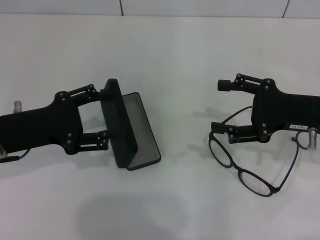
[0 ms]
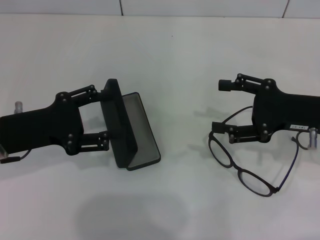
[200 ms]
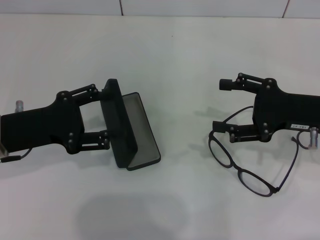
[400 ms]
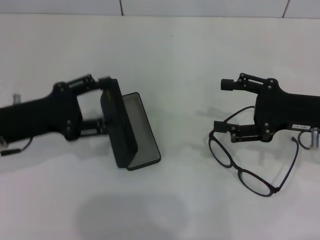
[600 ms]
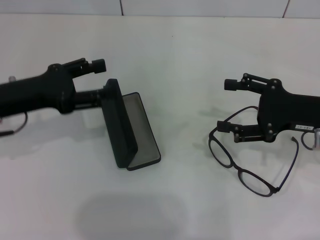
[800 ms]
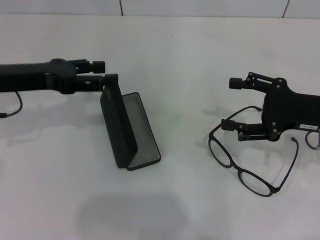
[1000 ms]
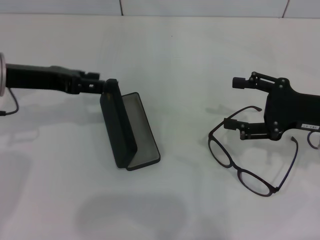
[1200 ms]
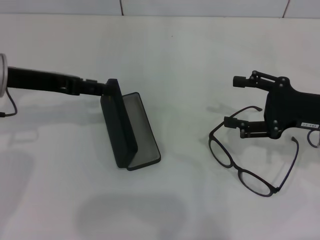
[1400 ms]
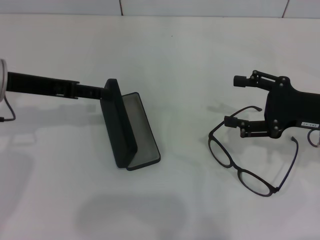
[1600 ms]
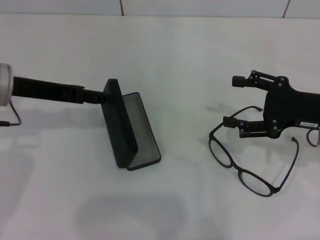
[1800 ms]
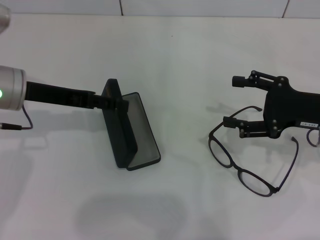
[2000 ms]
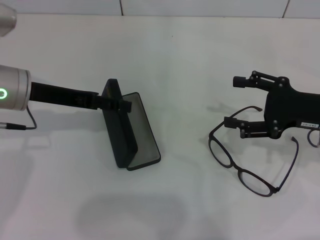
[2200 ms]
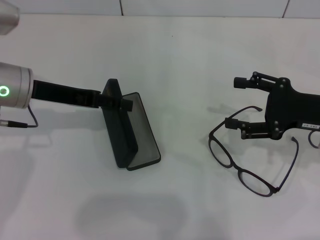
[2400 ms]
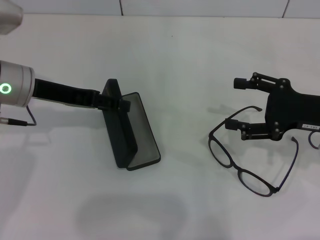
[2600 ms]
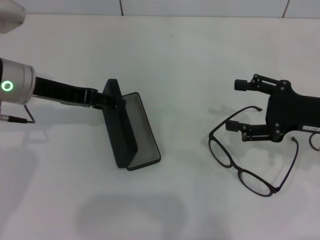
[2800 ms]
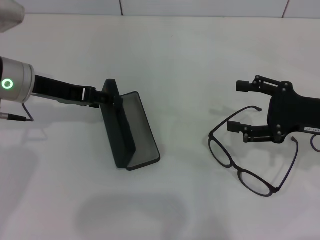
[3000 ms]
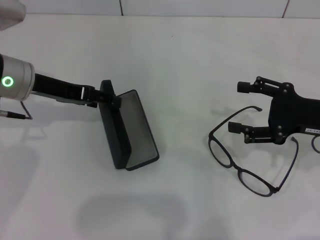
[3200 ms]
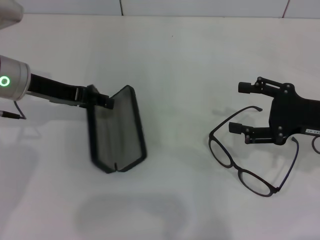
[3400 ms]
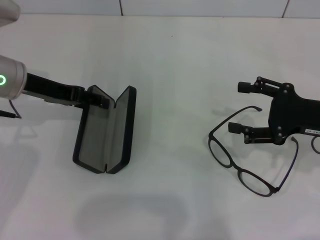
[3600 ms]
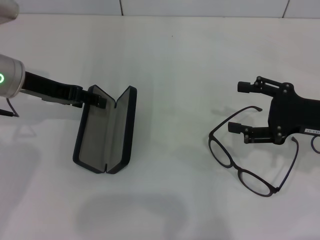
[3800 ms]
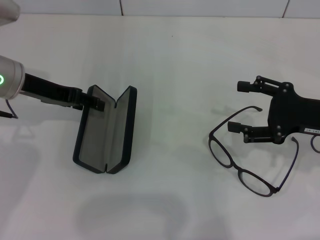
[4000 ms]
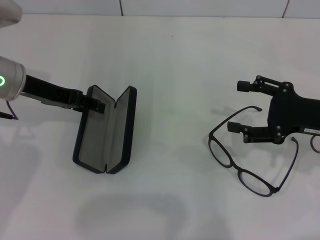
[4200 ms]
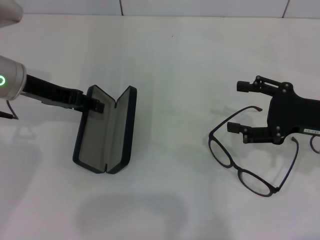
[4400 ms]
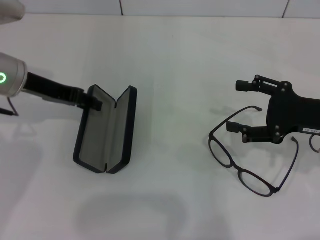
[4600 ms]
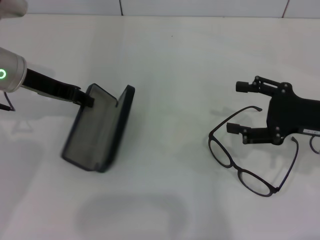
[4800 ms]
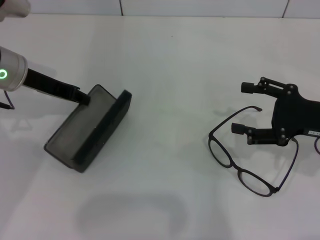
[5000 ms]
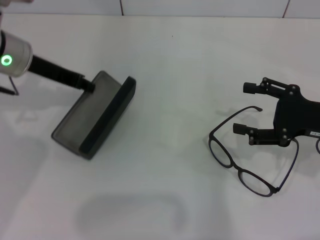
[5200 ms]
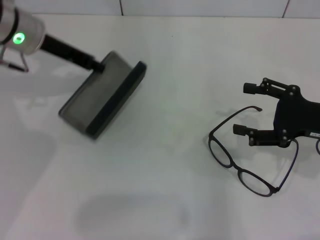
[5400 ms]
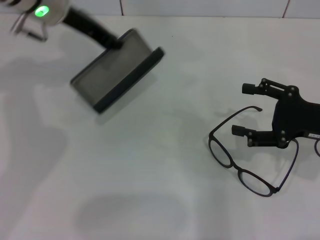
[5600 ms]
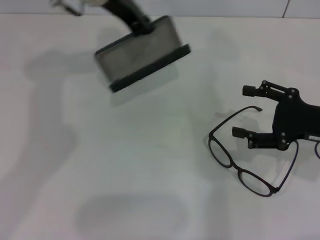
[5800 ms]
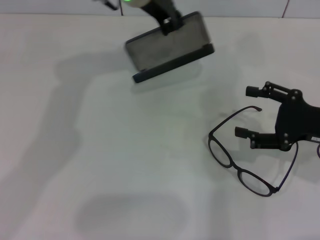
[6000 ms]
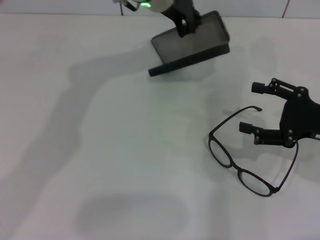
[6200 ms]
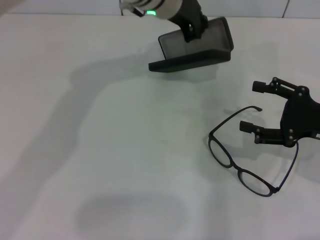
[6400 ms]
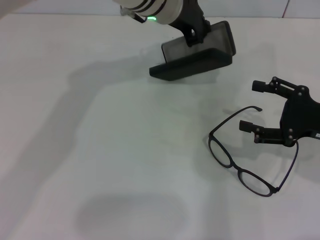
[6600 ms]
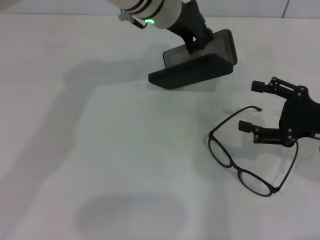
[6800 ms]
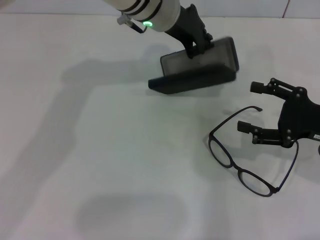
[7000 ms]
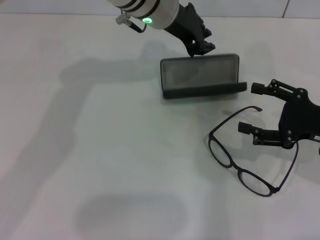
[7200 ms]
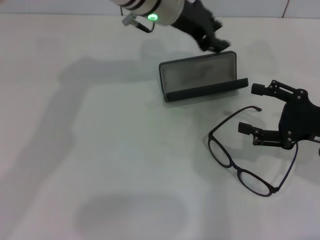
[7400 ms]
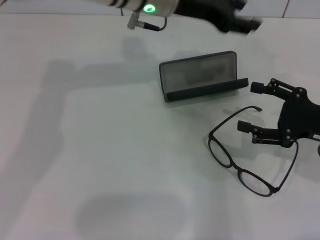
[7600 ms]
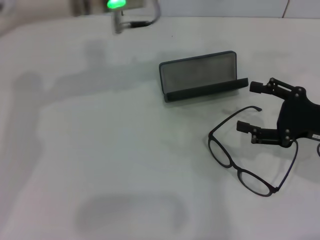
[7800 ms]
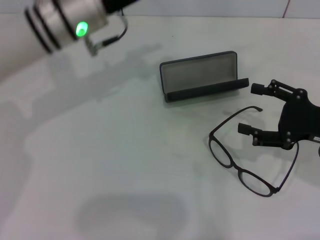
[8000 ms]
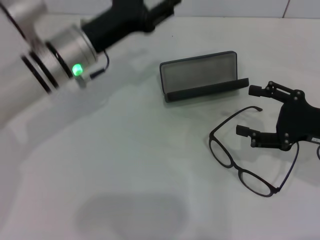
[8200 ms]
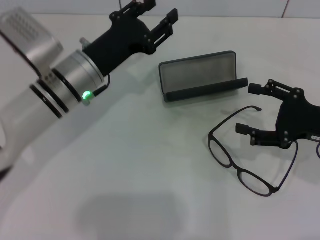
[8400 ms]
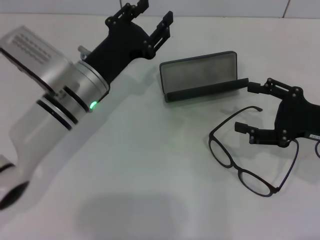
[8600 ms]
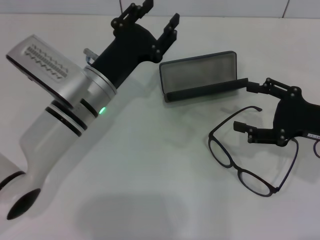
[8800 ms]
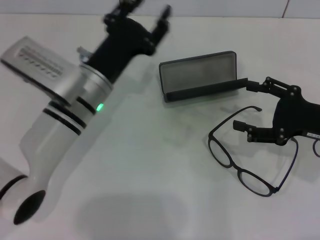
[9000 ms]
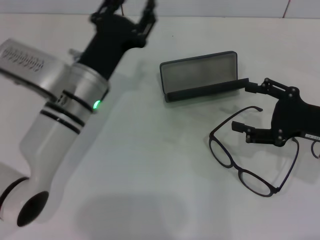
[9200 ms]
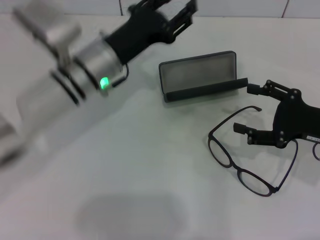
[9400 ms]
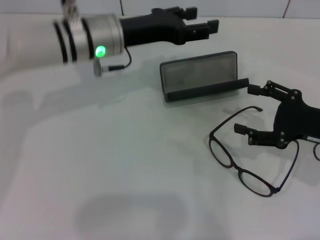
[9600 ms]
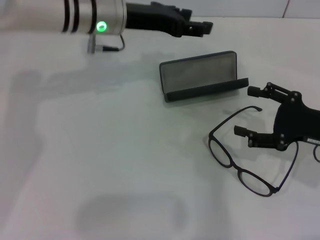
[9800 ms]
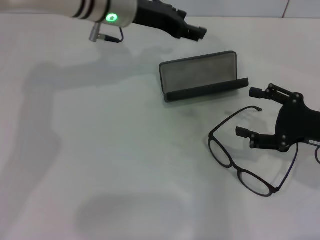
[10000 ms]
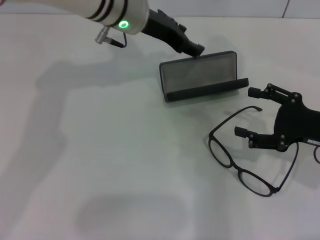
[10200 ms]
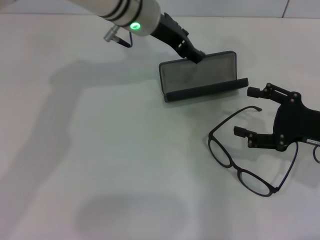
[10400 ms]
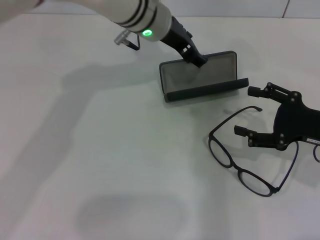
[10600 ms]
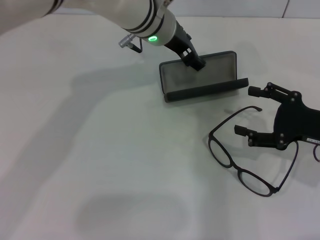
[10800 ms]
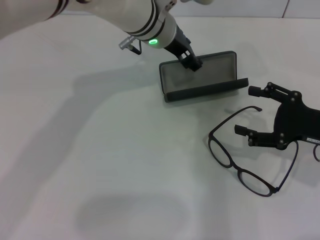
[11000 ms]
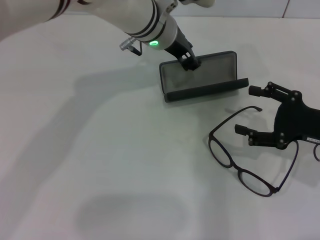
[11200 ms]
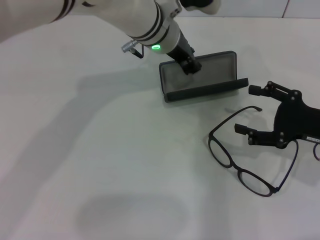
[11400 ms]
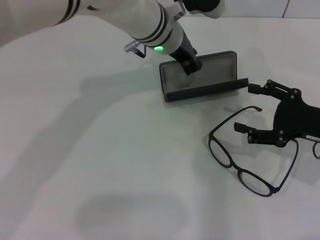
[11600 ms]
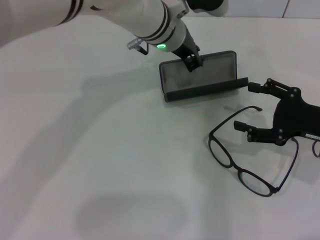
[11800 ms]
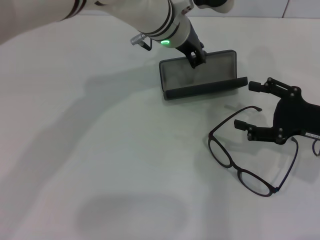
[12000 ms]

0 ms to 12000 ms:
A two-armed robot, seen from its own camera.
Step, 0 ms to 4800 ms: Grab the glasses case with your left hand.
Step, 5000 ms to 7400 ms: Place the glasses case in the center of the table with your left hand.
0 ms to 1600 ms: The left gripper moves forward and upward, some 10 cm.
1600 ms to 4400 ms: The grippers make only small movements.
4400 ms to 6000 ms: The left gripper moves to the right and forward, about 20 cm, and closes its fingers.
6000 ms to 7600 ms: The left gripper opens.
7600 ms to 9000 ms: The left gripper travels downward, backward and to the left by approximately 20 cm.
9000 ms to 10400 ms: The left gripper goes about 15 cm forward, upward and to the right.
10400 ms to 12000 ms: The left gripper moves to the right, some 5 cm, and closes up.

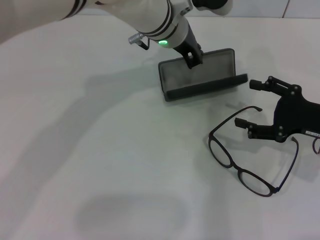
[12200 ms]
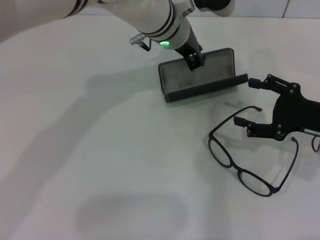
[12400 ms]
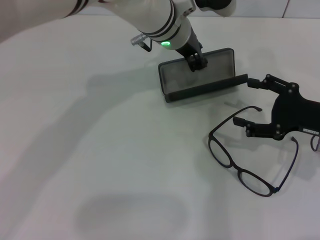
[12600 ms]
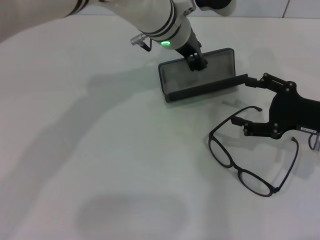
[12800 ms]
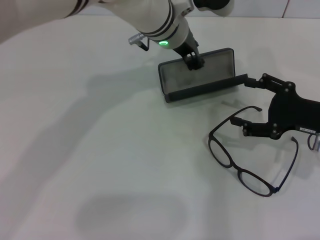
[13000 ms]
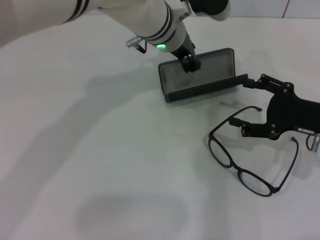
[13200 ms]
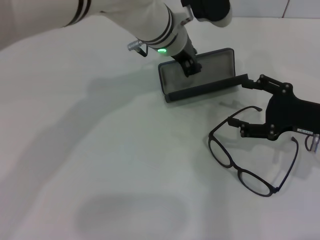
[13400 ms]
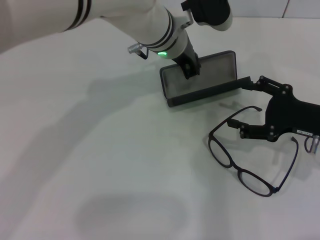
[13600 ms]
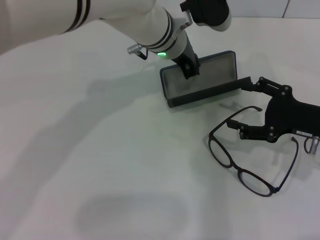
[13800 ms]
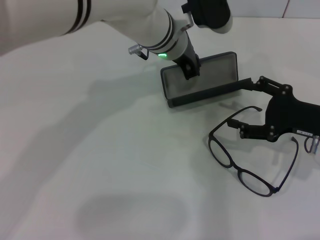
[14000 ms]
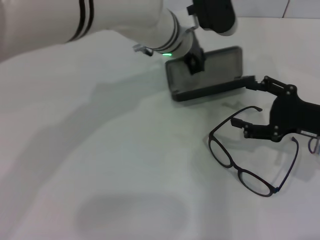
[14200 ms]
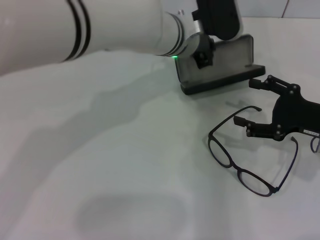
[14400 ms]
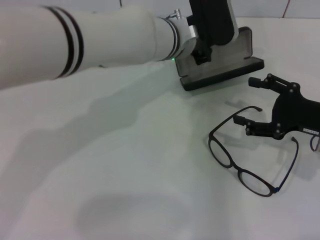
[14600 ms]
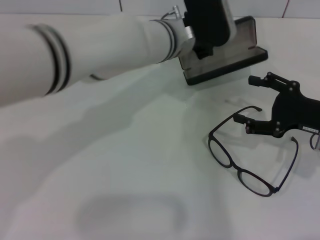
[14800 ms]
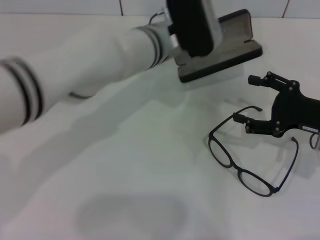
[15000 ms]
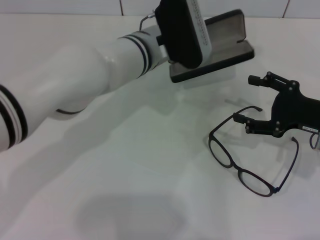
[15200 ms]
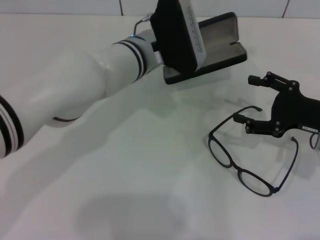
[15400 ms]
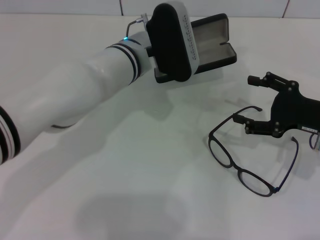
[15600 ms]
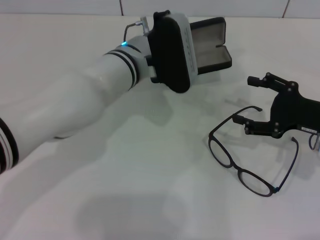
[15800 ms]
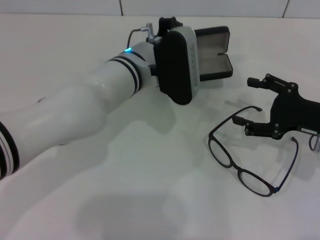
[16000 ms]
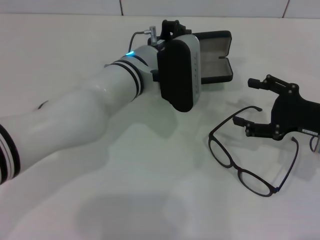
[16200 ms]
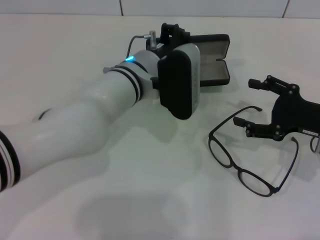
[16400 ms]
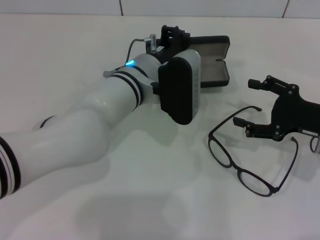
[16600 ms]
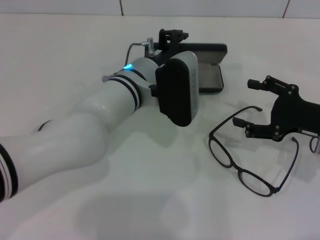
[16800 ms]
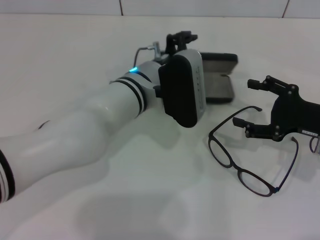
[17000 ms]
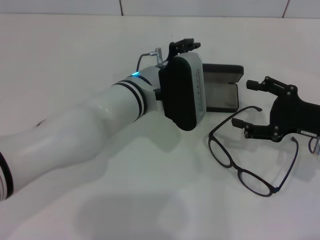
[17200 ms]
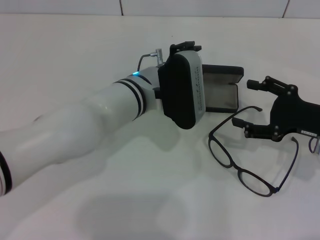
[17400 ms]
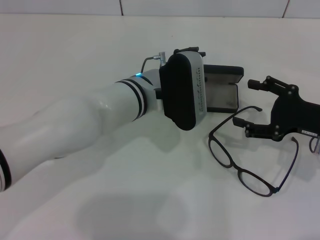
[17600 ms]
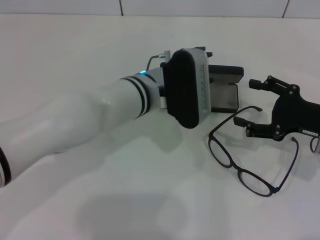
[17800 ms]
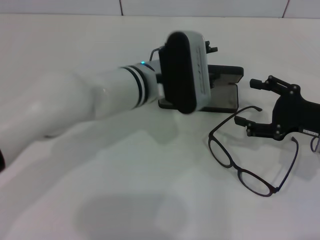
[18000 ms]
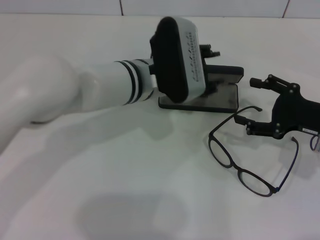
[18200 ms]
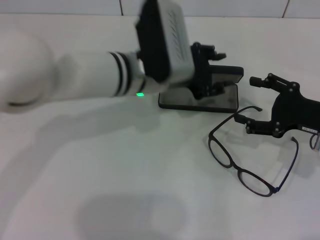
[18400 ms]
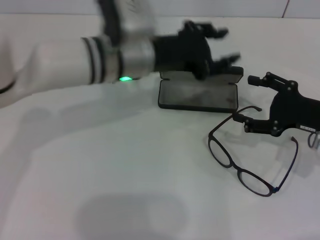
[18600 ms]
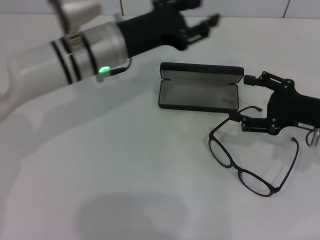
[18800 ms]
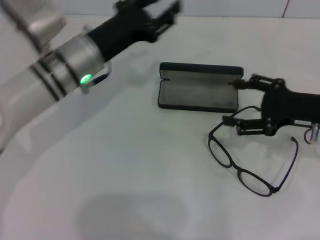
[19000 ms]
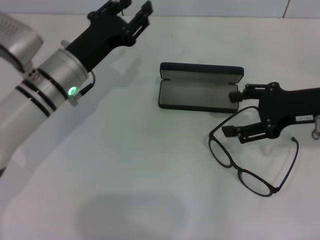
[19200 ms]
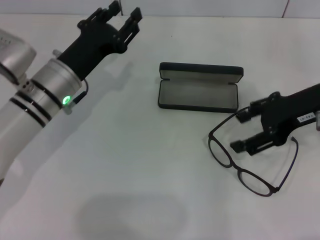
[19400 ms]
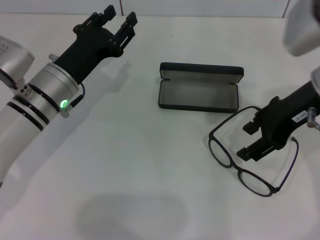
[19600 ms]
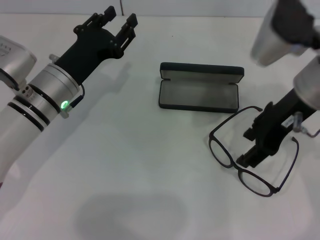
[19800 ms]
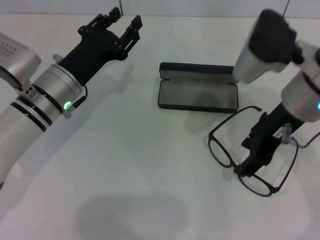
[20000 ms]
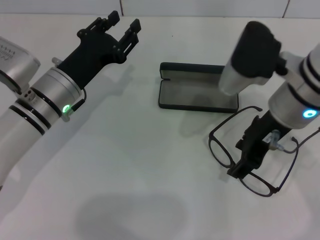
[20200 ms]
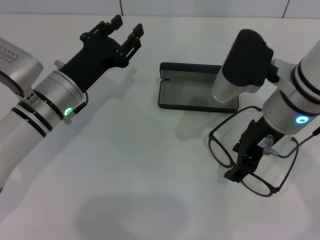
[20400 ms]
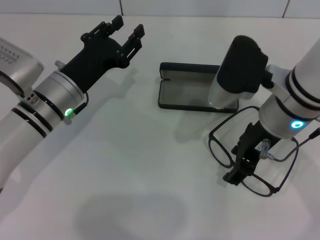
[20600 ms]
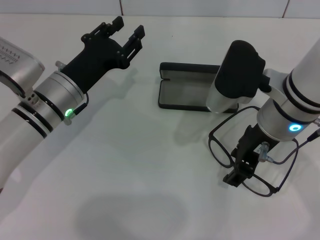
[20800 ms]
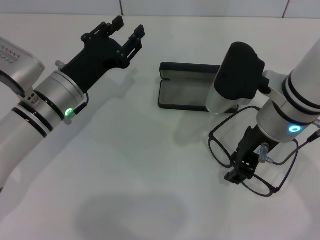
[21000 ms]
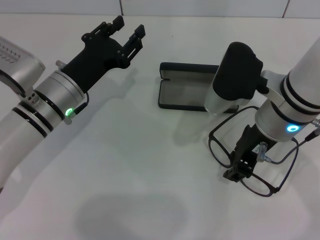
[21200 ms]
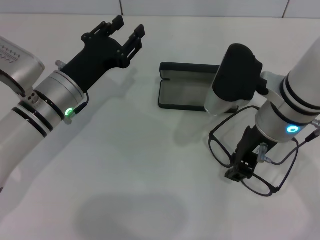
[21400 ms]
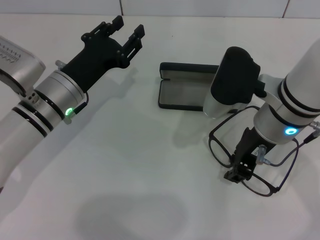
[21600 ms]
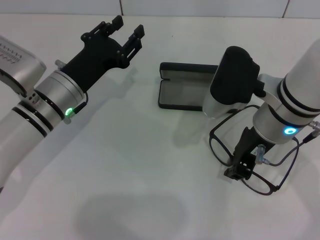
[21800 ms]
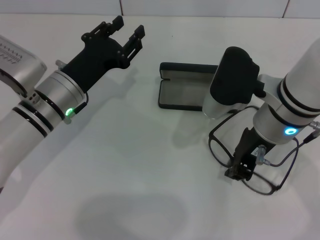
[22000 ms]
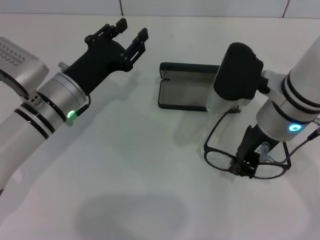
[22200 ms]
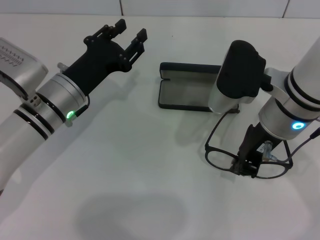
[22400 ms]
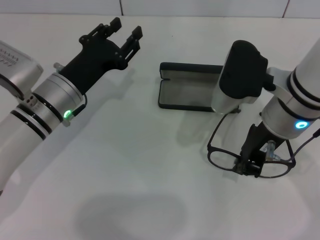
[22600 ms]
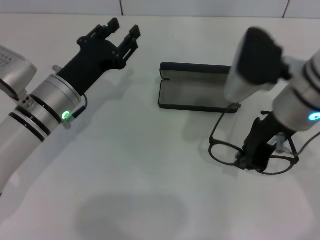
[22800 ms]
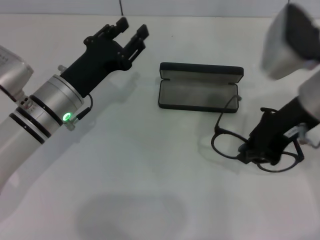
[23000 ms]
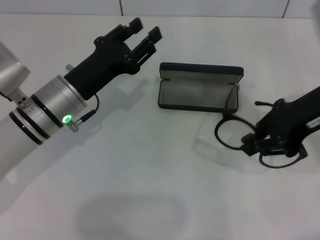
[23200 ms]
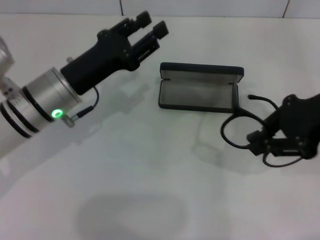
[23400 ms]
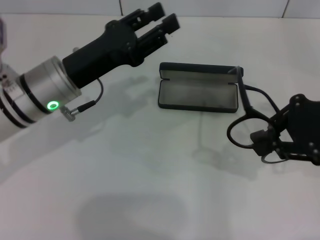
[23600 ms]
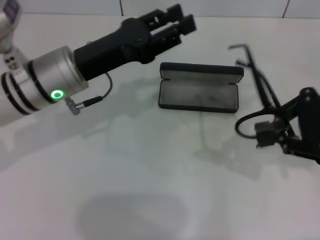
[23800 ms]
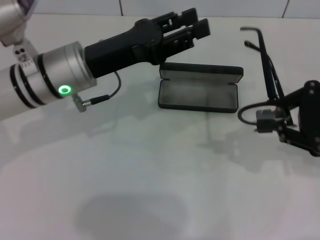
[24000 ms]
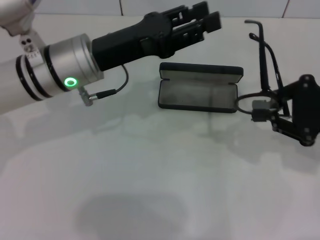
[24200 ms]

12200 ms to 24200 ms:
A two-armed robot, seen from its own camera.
Step, 12200 ms to 22200 ms: Grab the eyeglass frame with your right hand.
12200 ms to 13800 ms: The grippers make only small movements.
13800 ms to 15200 ms: The left gripper moves some 5 cm.
16600 ms to 18200 ms: The left gripper opens up.
18200 ms to 19800 ms: The right gripper moves upward and to the left, approximately 20 cm; the left gripper goes approximately 15 cm to the left.
19800 ms to 21200 ms: The right gripper ends up about 5 cm from where it was.
21200 ms to 22600 ms: The right gripper closes up.
22600 ms to 24200 ms: The right gripper is displaced to the right by roughly 15 cm, while the left gripper travels upward by about 10 cm.
